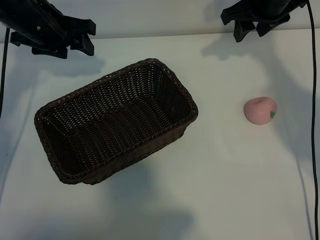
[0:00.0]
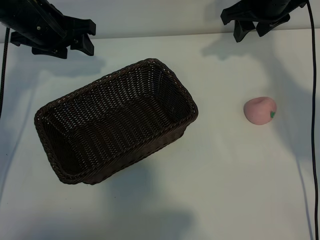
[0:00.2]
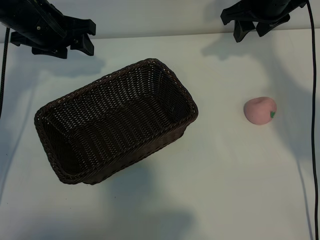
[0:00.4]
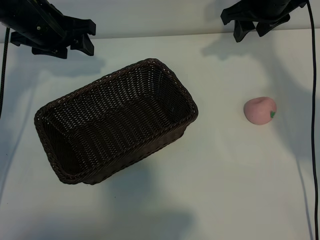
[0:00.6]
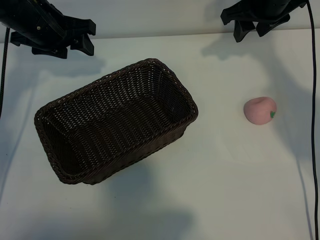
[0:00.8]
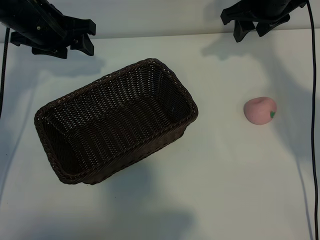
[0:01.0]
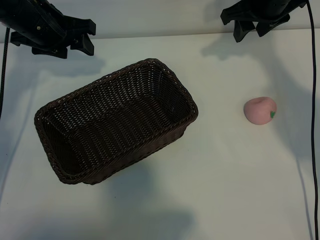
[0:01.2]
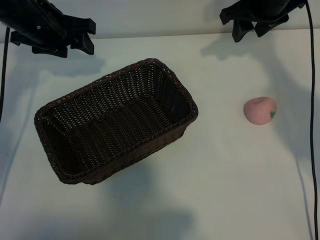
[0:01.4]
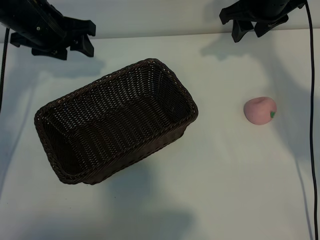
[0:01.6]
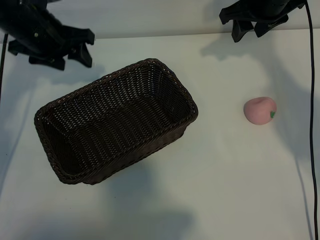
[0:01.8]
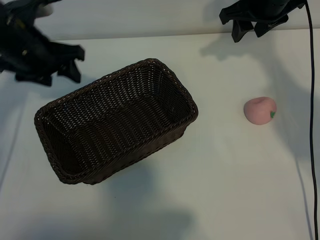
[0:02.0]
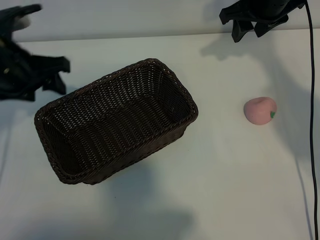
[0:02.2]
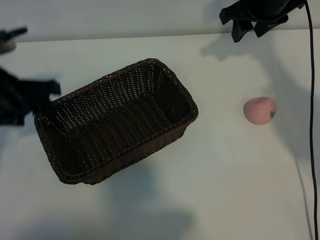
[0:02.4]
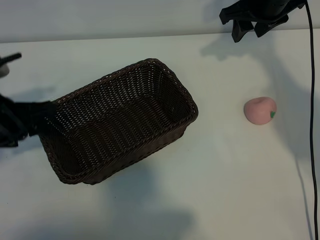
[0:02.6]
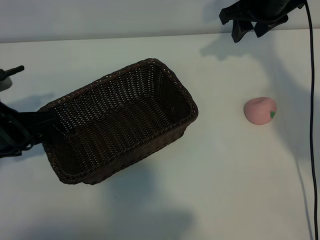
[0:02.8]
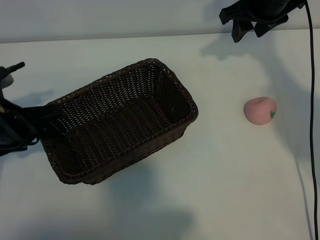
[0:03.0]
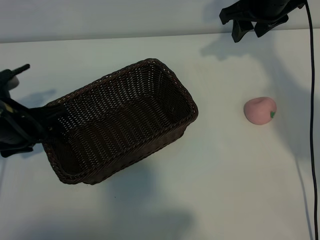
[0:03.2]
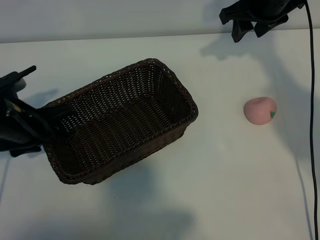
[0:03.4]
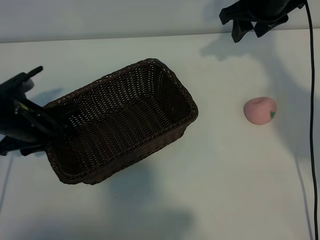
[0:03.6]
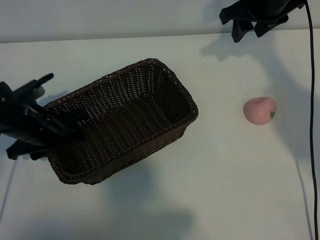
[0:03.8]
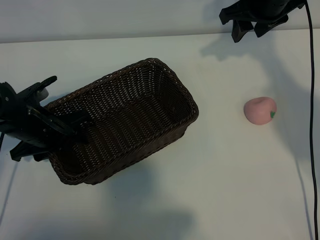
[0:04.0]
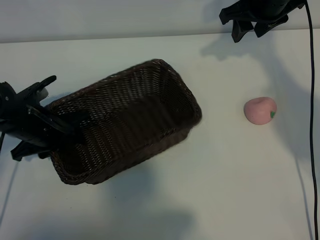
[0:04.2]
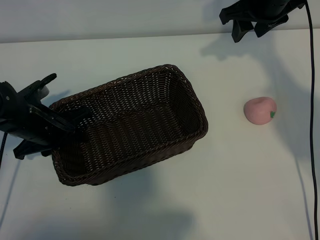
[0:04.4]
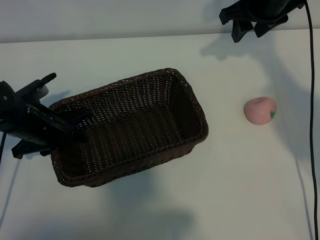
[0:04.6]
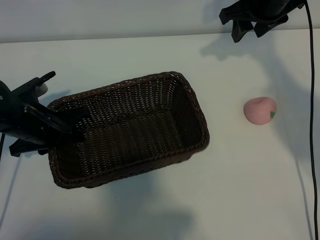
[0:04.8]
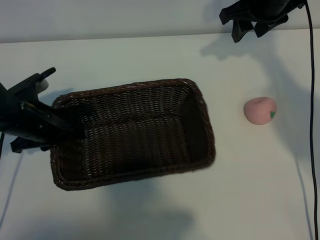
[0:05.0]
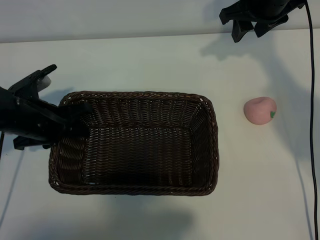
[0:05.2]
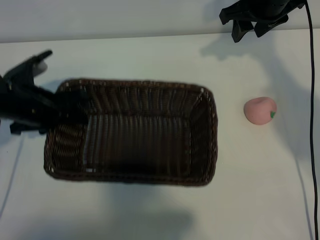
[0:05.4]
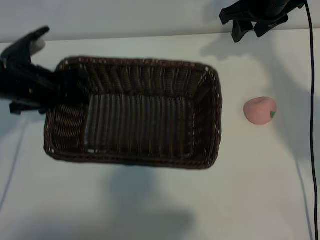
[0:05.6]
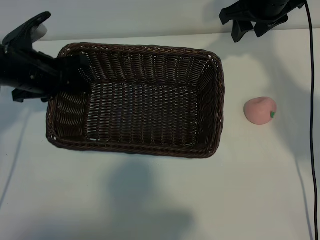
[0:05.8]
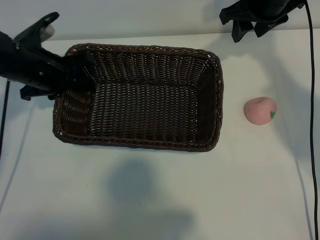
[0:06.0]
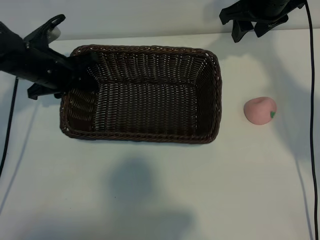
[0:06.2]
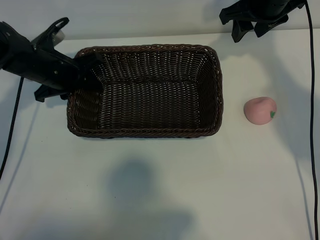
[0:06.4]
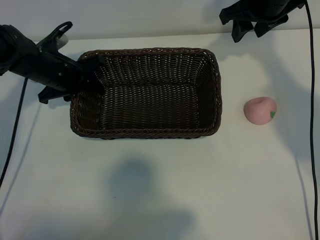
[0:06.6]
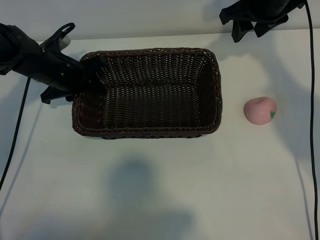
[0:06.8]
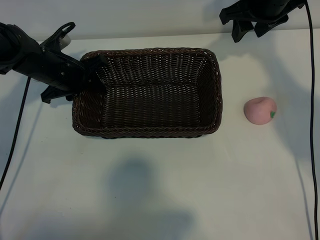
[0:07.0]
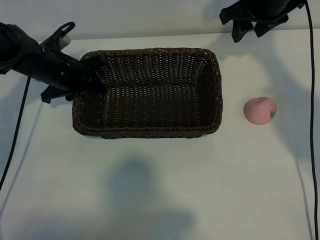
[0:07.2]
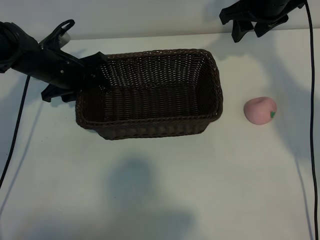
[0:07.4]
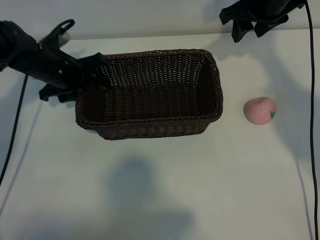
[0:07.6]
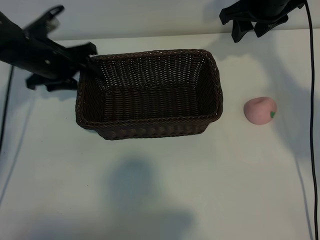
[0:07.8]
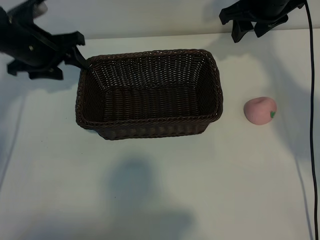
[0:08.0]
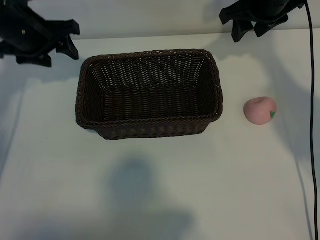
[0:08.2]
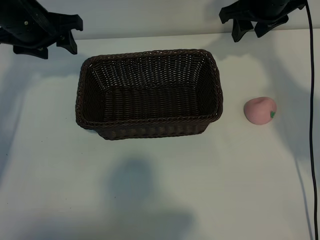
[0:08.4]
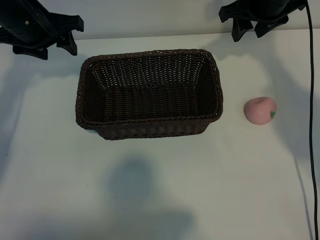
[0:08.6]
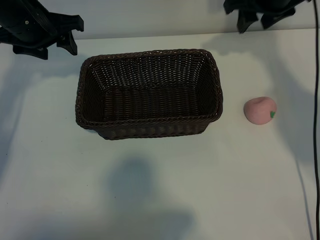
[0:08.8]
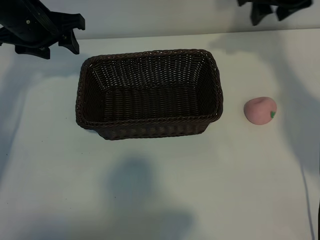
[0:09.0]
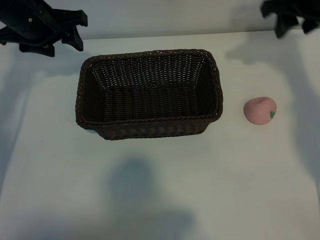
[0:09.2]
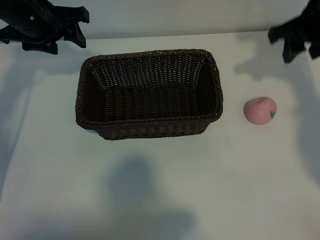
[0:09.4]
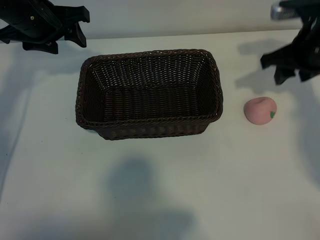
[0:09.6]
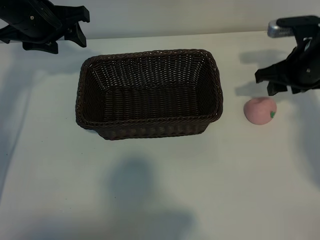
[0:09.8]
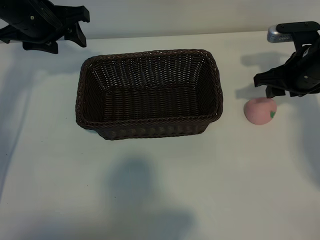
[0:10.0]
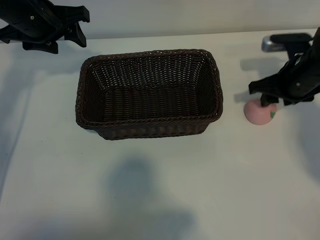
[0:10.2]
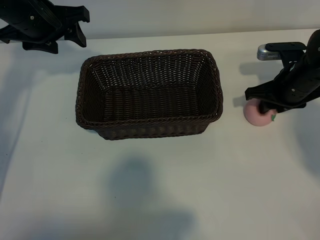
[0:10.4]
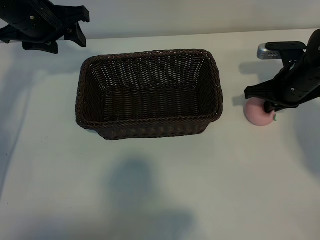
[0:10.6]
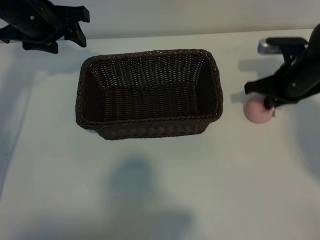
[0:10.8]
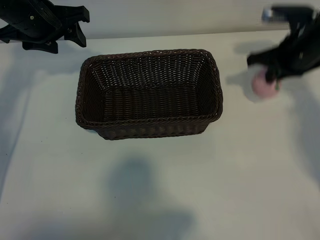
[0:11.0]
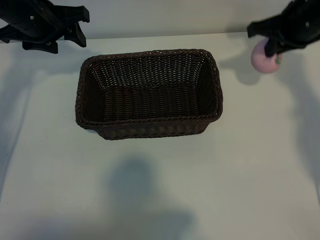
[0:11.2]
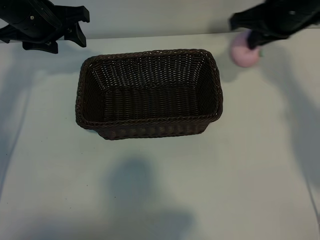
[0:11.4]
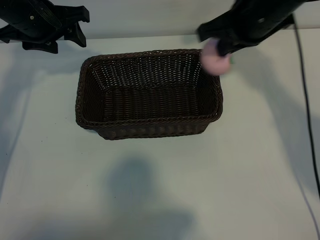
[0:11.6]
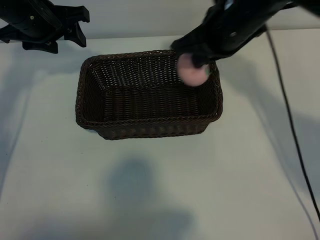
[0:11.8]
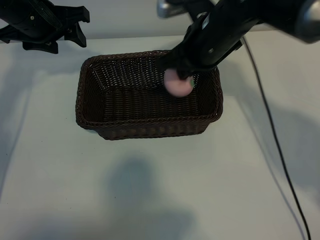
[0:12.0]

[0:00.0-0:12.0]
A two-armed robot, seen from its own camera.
Task of the whole recording: pick up the peach and put it into the basket.
Step, 0:01.6 to 0:04.4: Grasp the basket with left gripper.
Step, 0:04.6 to 0:07.6: Place the basket in the center of view with left gripper.
Step, 0:07.8 to 0:10.4: Grasp the peach with right gripper.

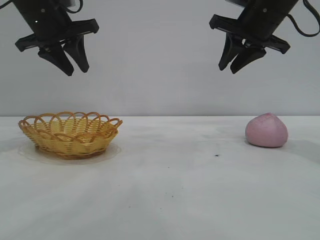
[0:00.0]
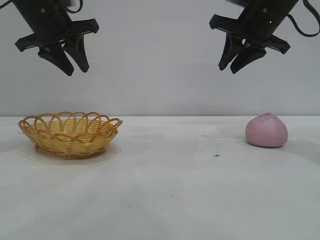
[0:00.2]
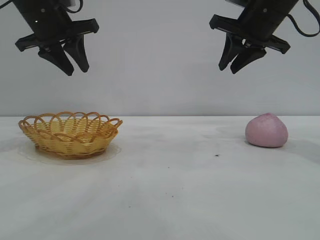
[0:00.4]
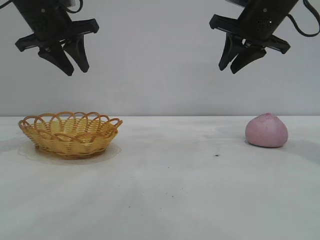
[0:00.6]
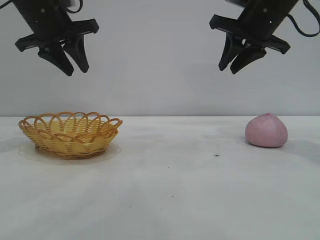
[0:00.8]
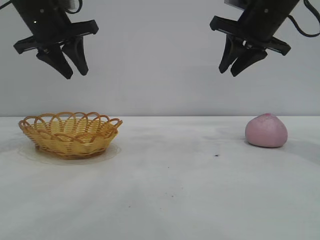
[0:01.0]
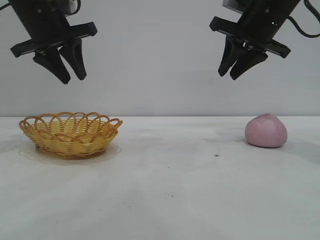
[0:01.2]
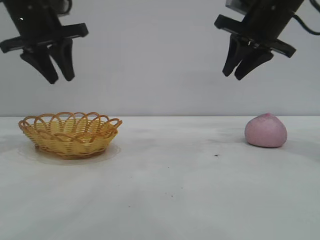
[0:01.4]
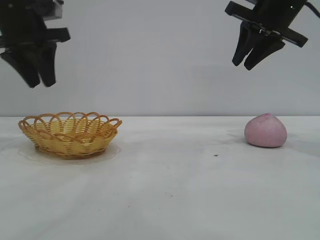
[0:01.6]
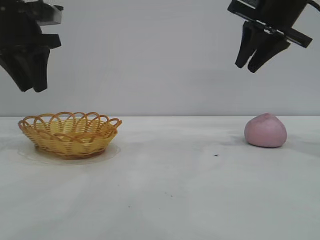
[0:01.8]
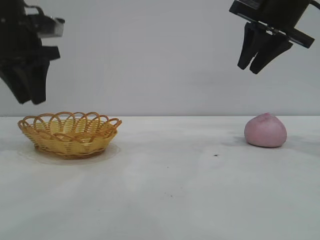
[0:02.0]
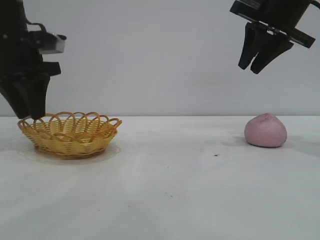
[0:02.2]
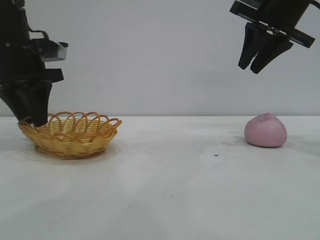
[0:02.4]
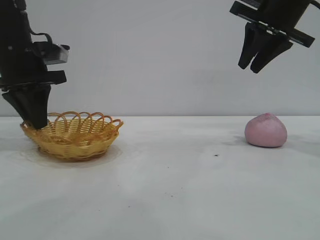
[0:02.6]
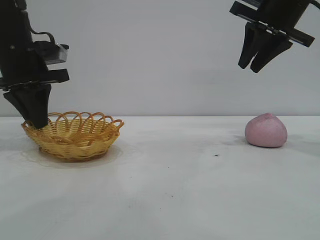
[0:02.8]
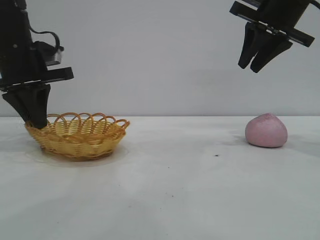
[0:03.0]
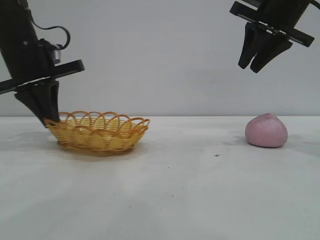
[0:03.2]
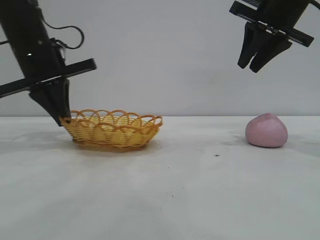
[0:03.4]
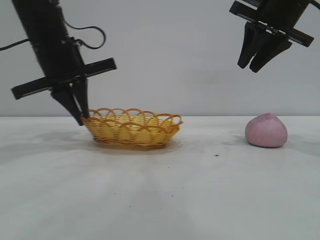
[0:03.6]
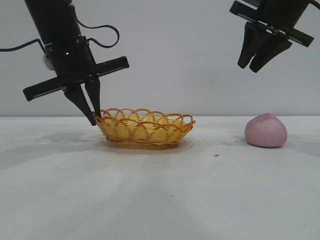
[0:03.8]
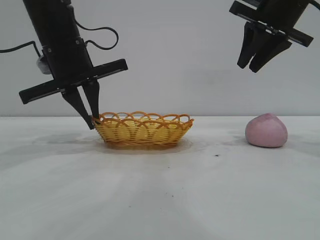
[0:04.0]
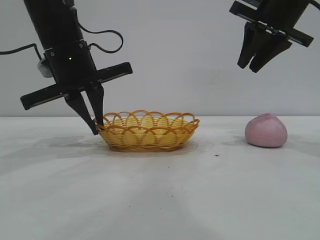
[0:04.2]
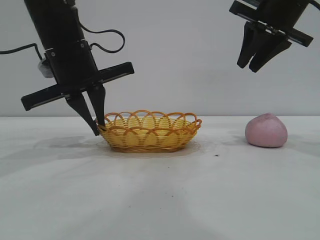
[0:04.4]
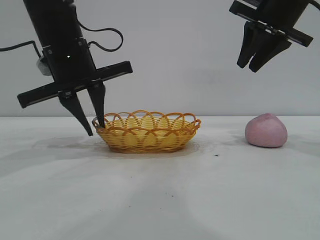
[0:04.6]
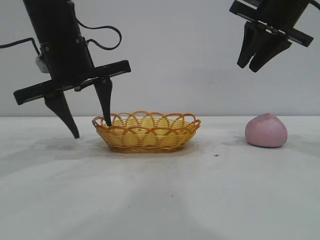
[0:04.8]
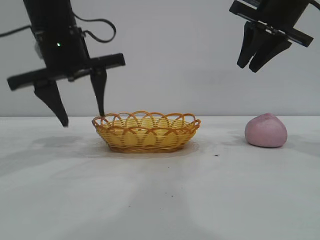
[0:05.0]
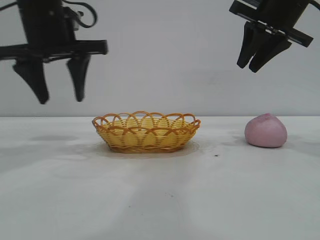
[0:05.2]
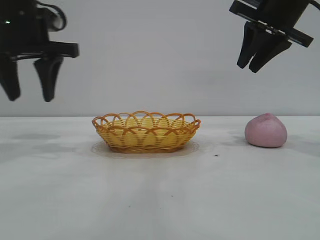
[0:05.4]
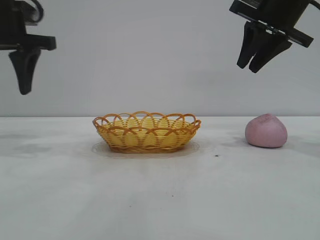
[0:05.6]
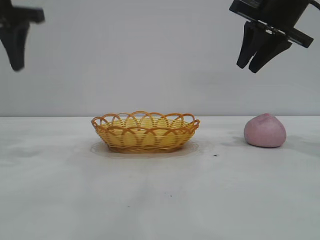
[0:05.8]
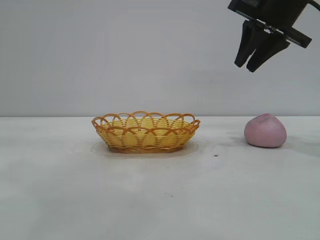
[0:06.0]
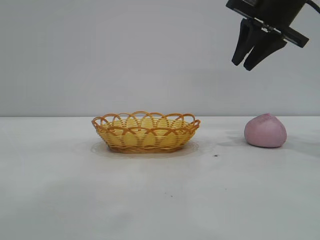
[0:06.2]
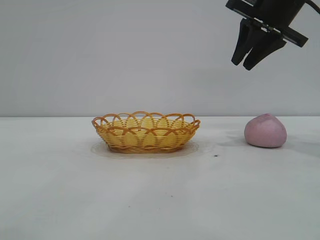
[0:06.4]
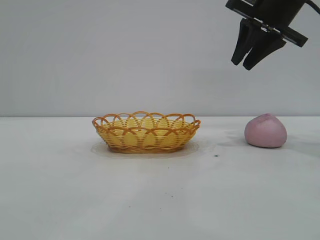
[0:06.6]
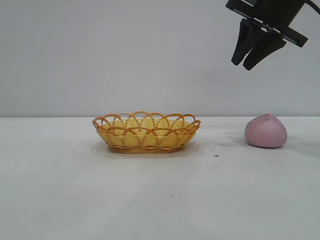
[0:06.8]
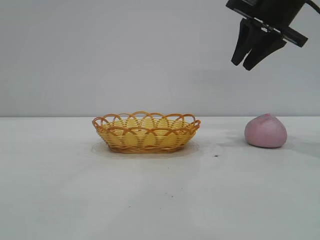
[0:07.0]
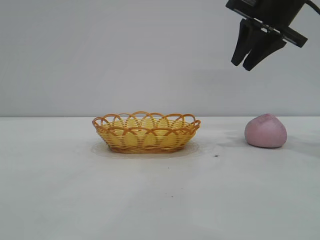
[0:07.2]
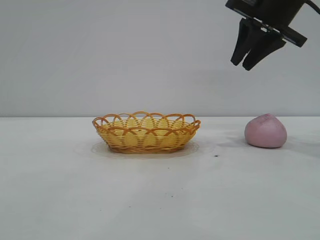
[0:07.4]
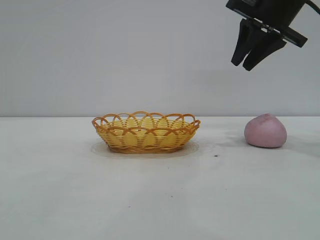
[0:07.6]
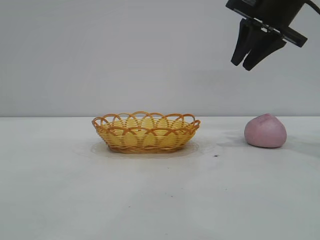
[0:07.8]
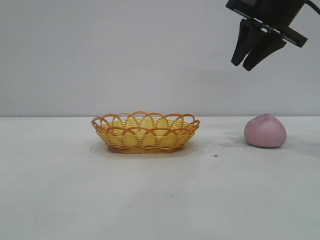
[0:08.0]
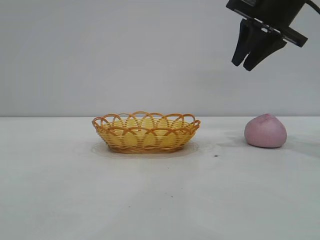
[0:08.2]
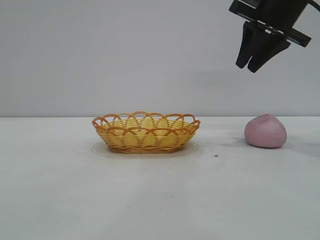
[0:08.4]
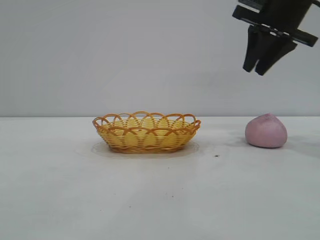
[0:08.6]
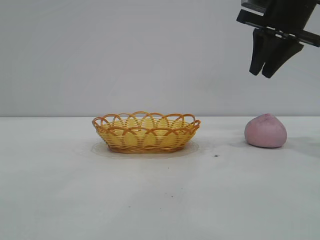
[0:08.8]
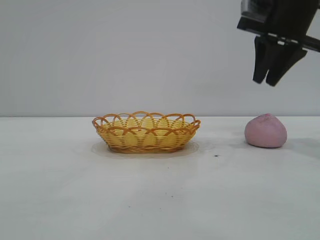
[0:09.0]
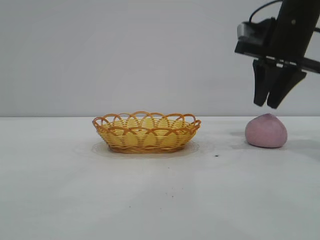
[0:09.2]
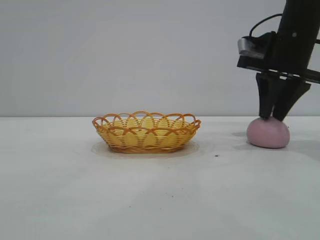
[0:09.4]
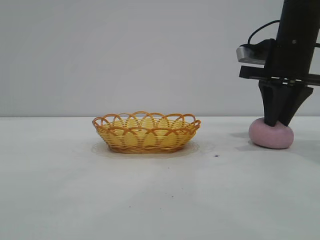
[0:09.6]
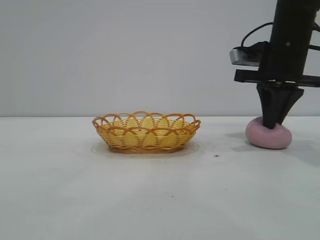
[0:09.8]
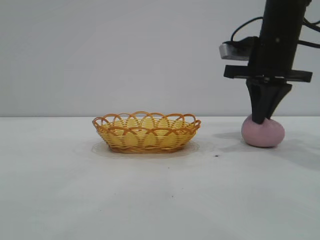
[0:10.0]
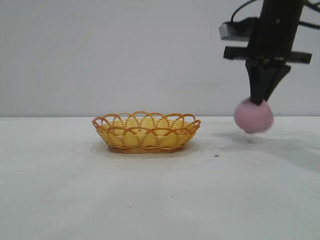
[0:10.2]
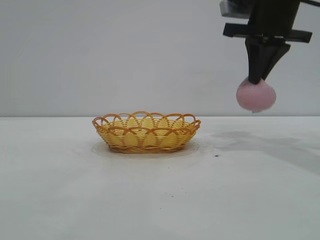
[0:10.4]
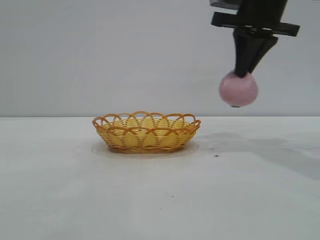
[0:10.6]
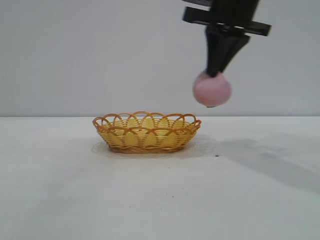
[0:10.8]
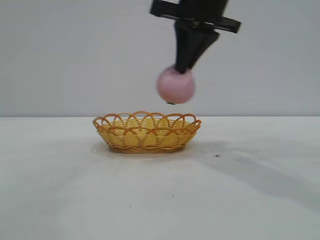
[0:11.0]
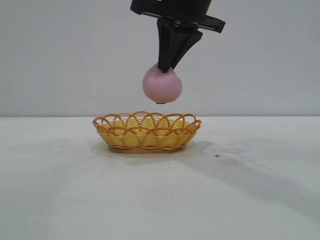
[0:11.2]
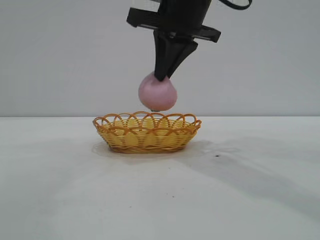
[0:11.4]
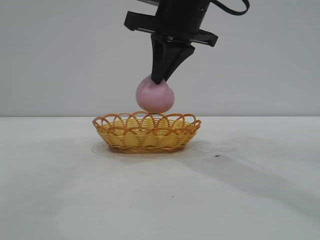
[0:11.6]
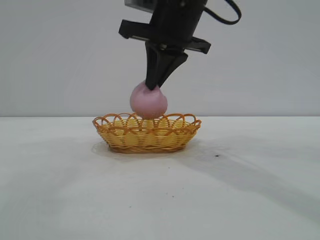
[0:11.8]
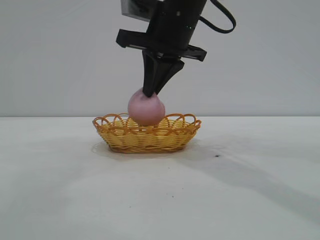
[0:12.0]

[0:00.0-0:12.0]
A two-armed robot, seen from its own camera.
Task of the whole recording: pick up the peach and put it into the basket.
Step, 0:00.0 to 0:05.2: Move the basket to the center of view.
Step, 0:05.4 to 0:10.4: Pick up the peach.
